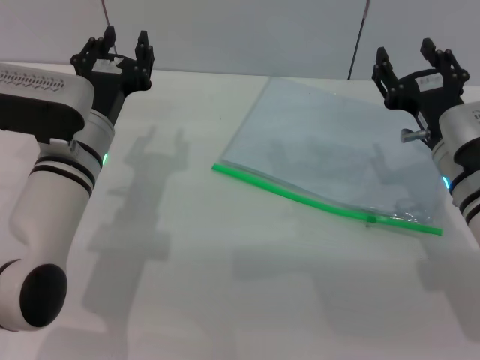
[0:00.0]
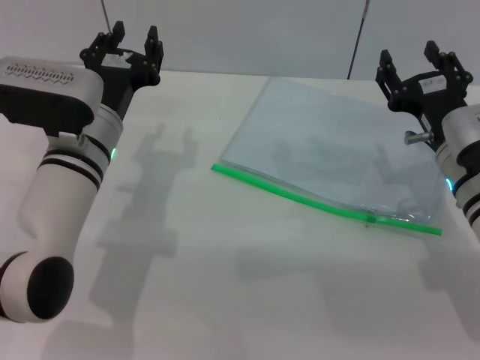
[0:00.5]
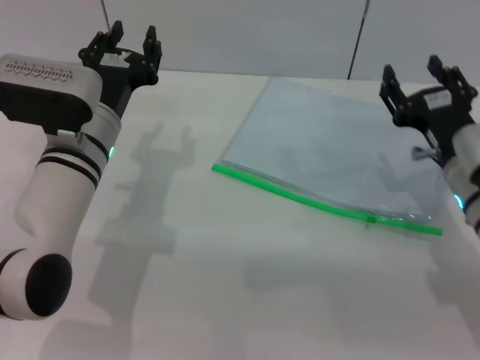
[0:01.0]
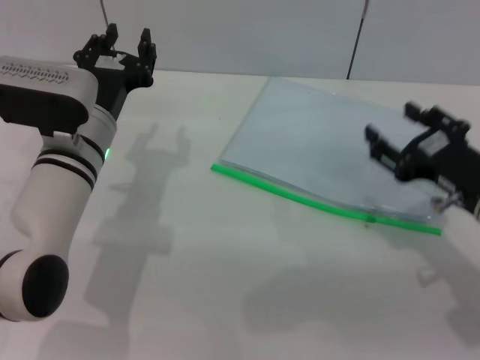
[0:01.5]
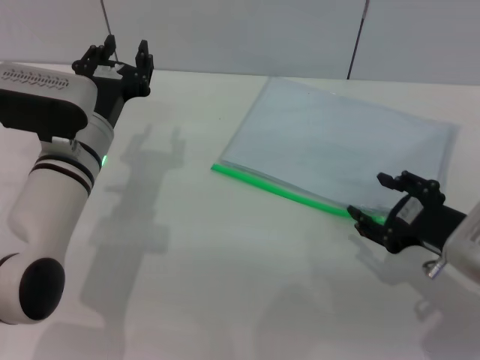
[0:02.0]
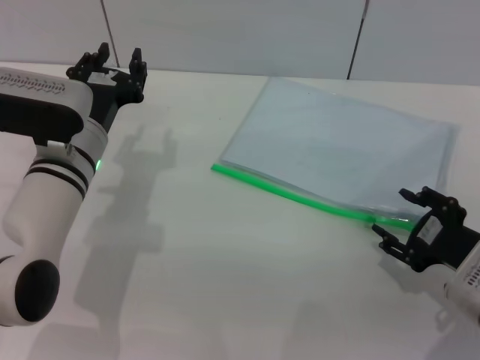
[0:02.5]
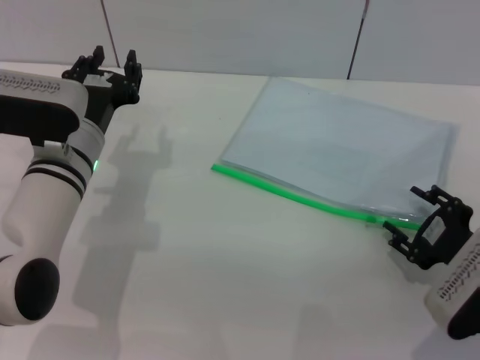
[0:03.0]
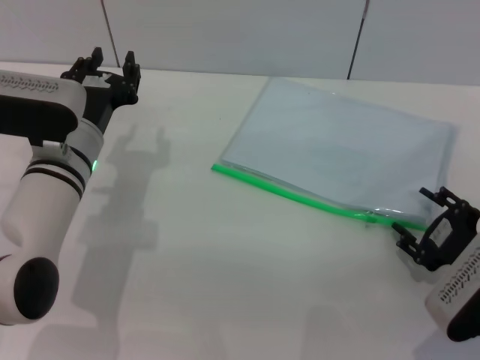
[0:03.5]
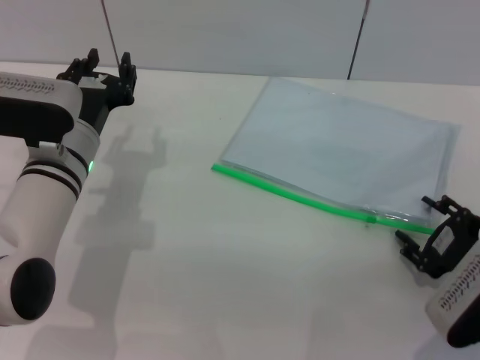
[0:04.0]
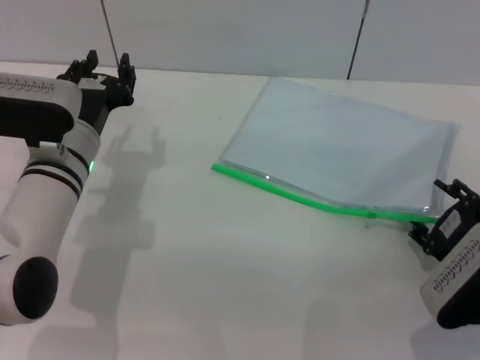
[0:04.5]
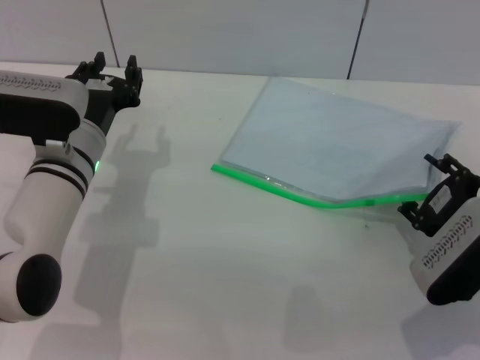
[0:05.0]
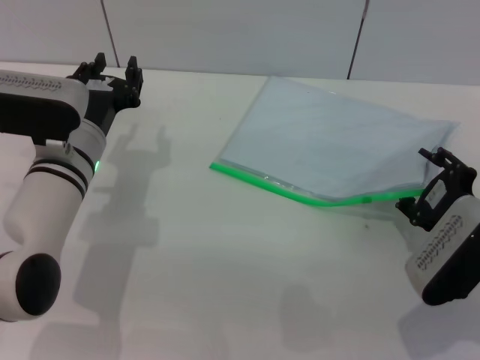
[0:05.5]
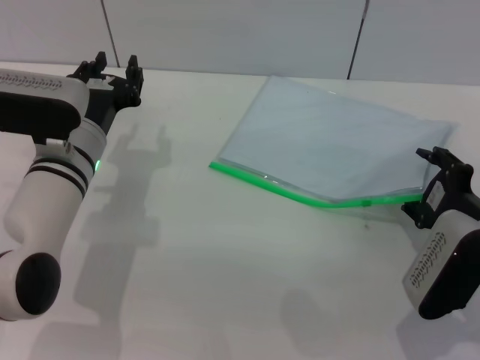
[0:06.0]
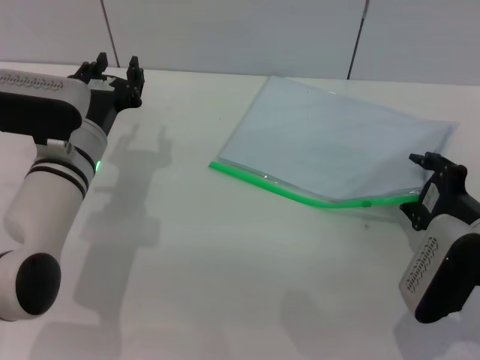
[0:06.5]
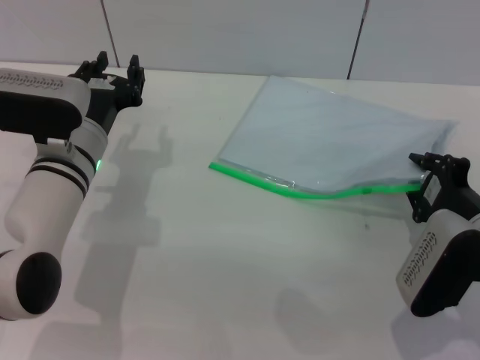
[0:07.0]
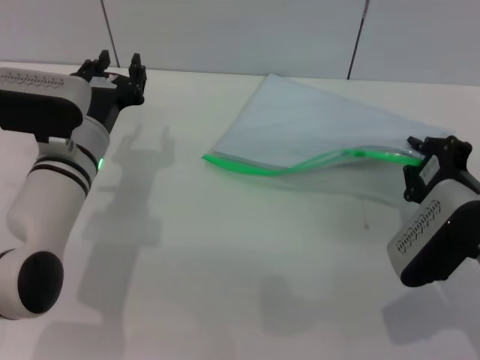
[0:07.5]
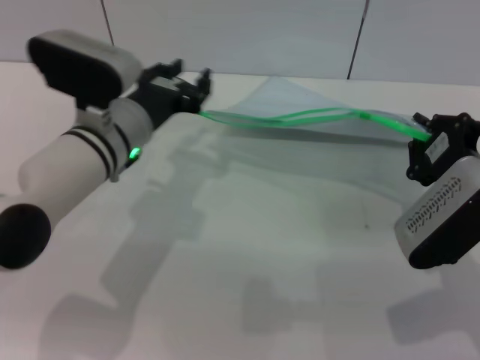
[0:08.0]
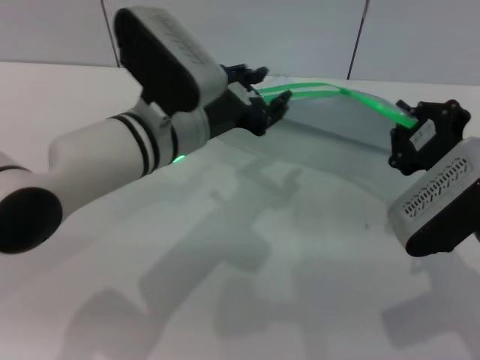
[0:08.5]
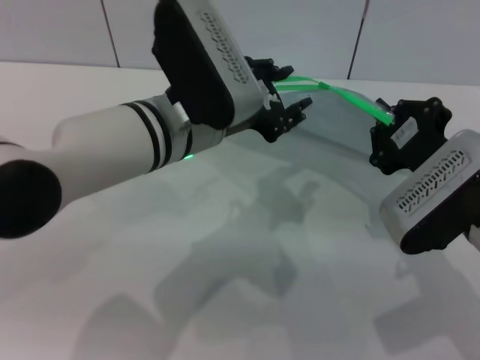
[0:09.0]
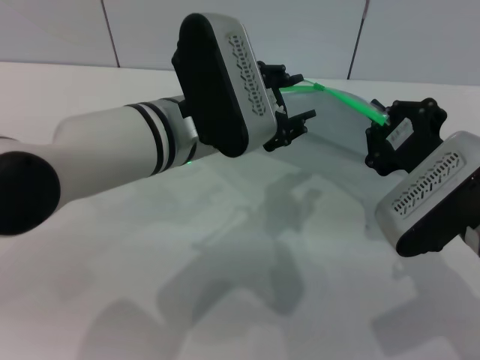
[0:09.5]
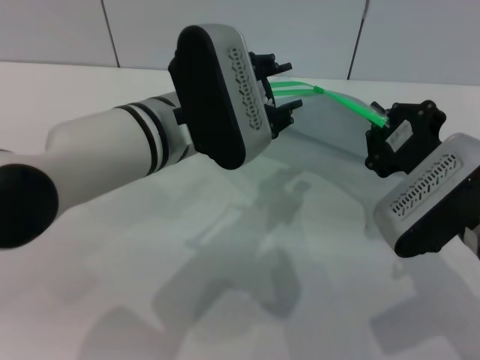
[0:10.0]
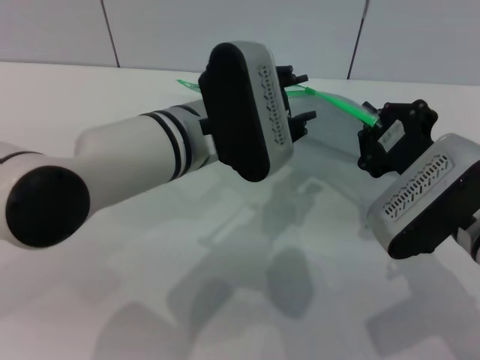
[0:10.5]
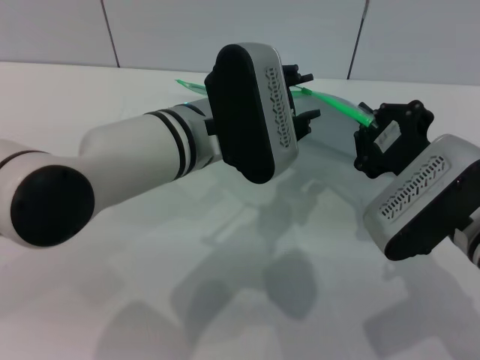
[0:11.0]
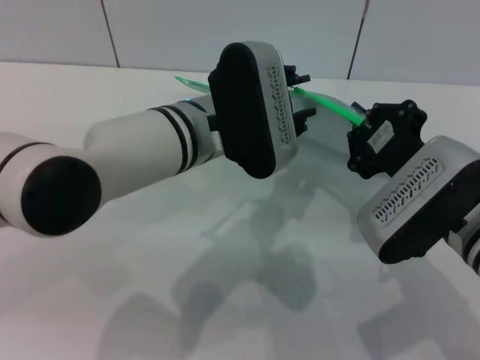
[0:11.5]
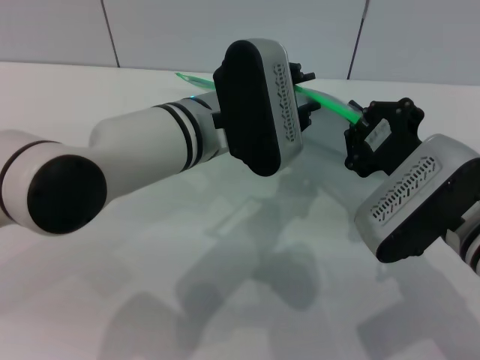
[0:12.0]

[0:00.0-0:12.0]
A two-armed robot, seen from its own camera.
Step, 0:00.0 to 0:07.5: Pick up the transparent plastic bag with the right gripper.
0:00.0 to 0:02.0: The right gripper shifts some 10 cm backward.
0:02.0 to 0:04.0: The right gripper changes place by some 5 cm.
0:04.0 to 0:06.0: The grippers move only a little.
0:06.0 to 0:08.0: The right gripper closes.
0:08.0 to 0:10.0: The left gripper is displaced to the right and upward by roughly 10 cm.

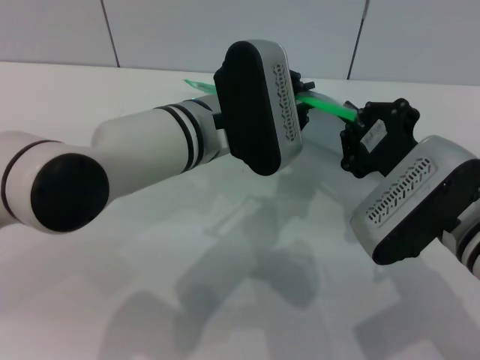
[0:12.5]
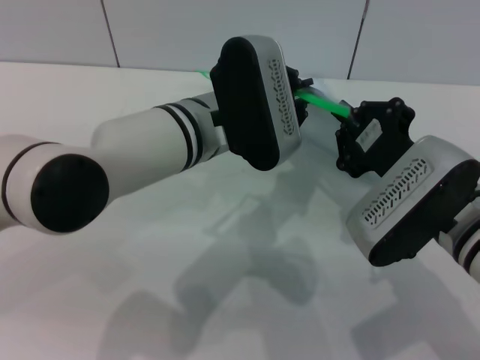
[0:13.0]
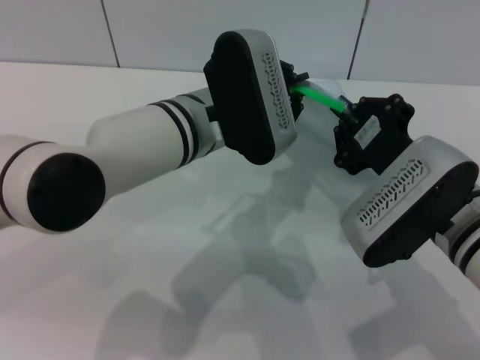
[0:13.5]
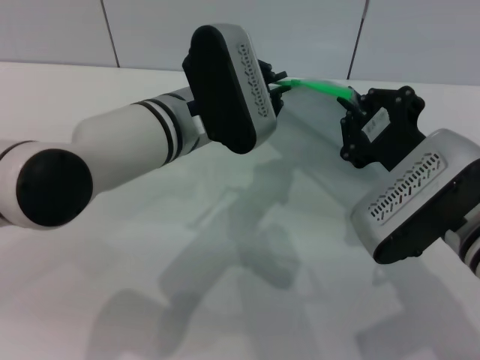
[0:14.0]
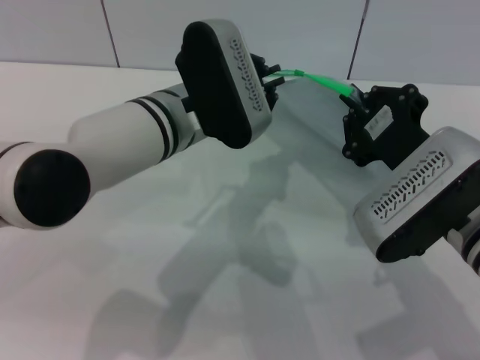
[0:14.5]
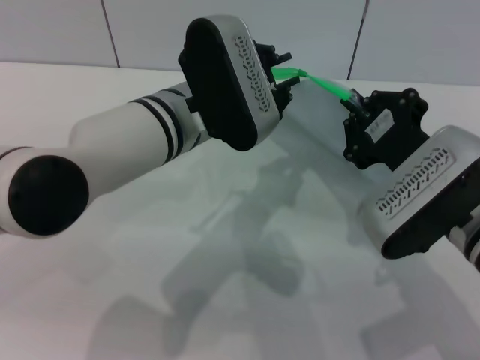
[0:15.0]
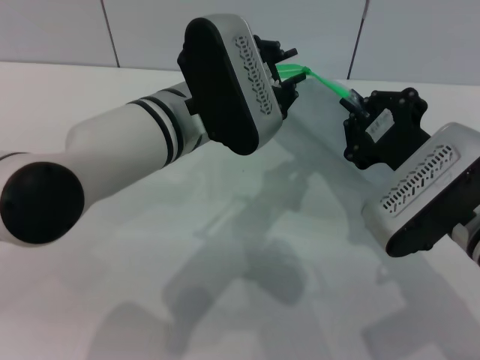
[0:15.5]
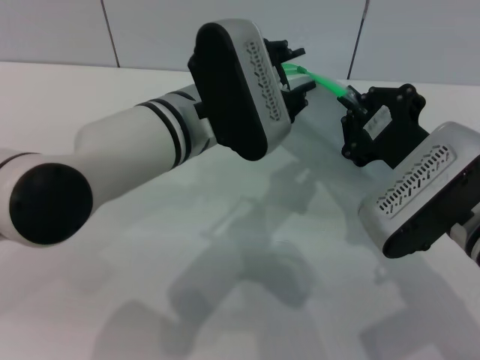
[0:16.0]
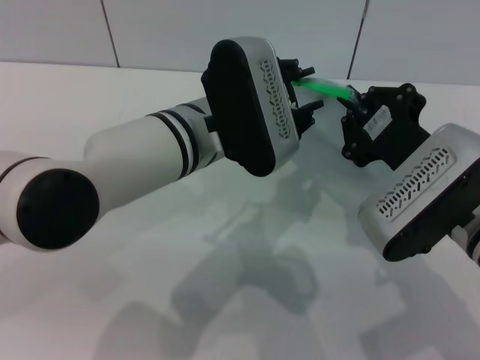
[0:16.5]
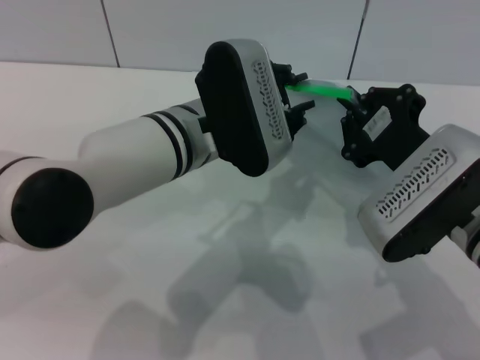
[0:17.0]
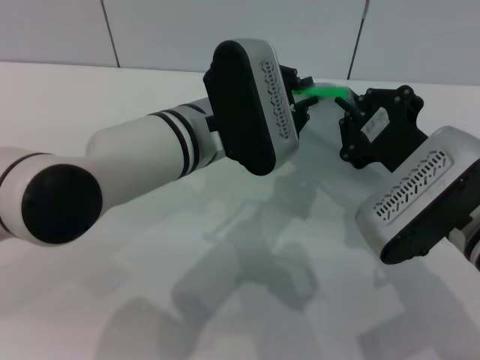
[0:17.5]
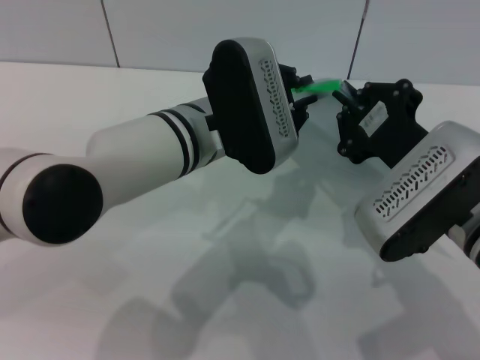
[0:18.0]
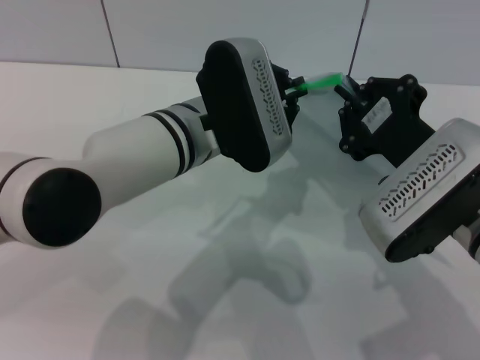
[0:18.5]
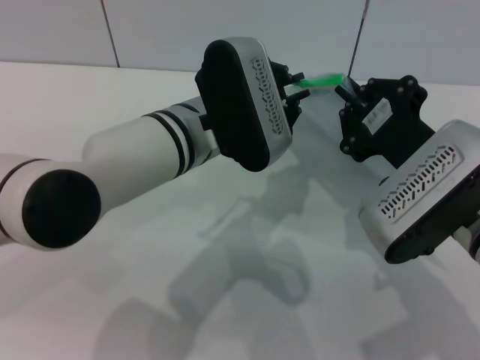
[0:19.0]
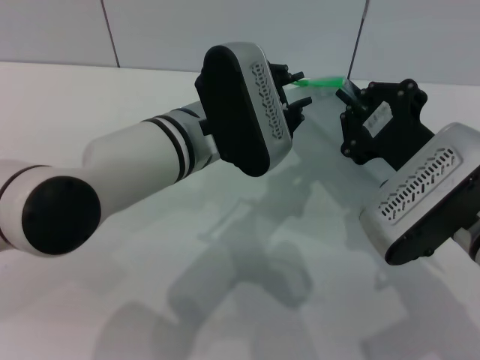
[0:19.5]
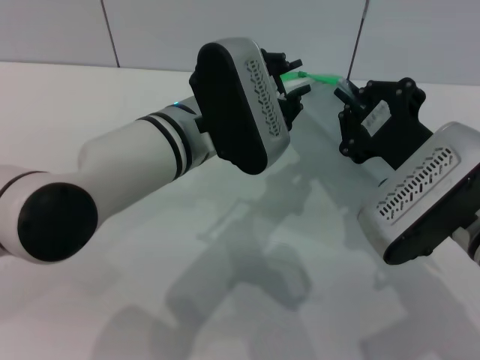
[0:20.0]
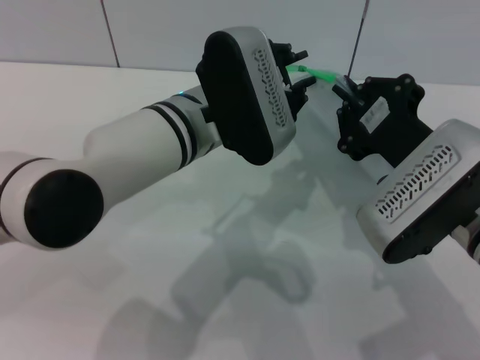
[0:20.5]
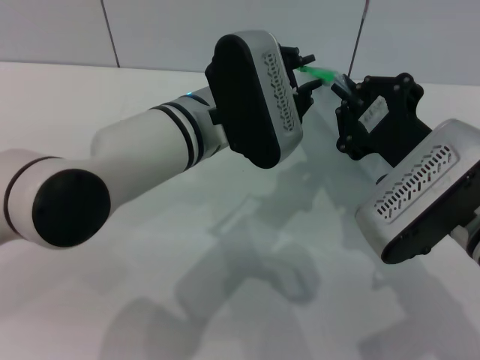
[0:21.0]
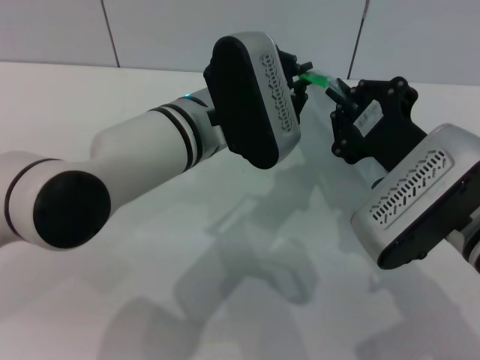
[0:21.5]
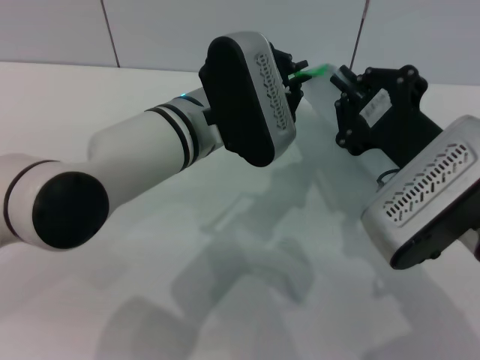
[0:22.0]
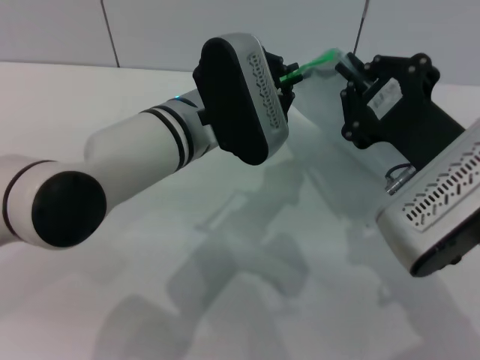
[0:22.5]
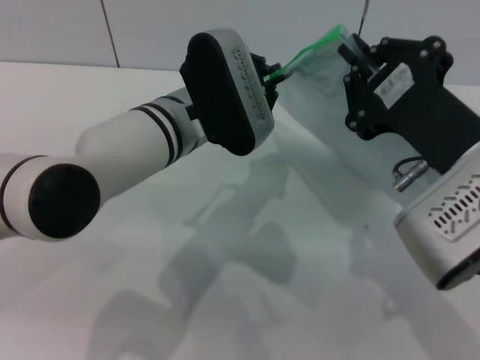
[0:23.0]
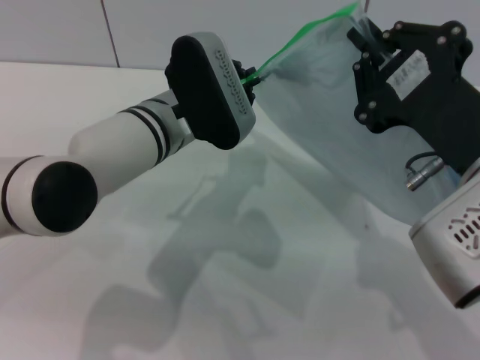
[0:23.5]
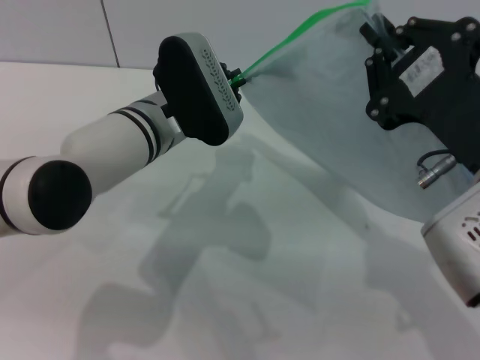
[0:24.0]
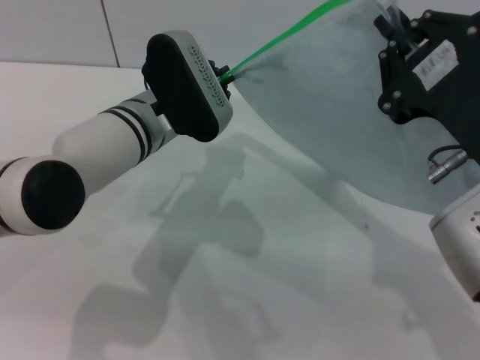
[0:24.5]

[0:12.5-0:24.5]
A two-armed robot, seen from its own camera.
0:12.5 to 0:14.5: The grippers move only a little.
0:14.5 to 0:16.5: The left gripper opens its fingers.
0:16.5 to 0:18.5: The left gripper closes.
0:18.5 to 0:20.5: The left gripper opens.
0:20.5 to 0:22.5: The left gripper closes.
0:22.5 to 0:24.5: The right gripper moves approximately 5 cm. Meanwhile the left gripper ends up some 5 cm from where it was.

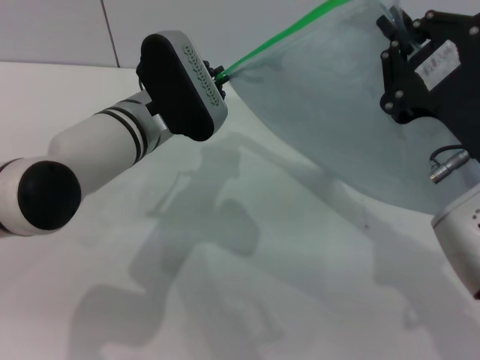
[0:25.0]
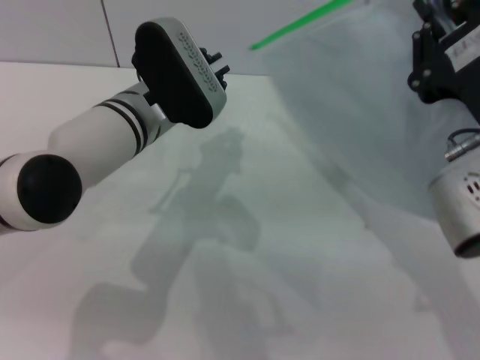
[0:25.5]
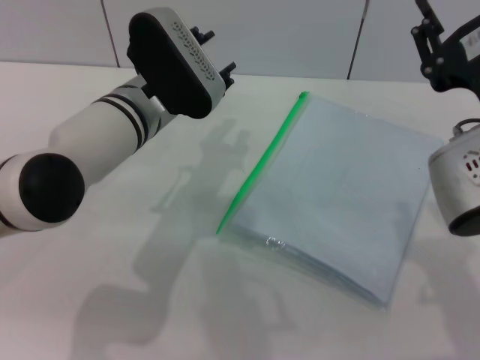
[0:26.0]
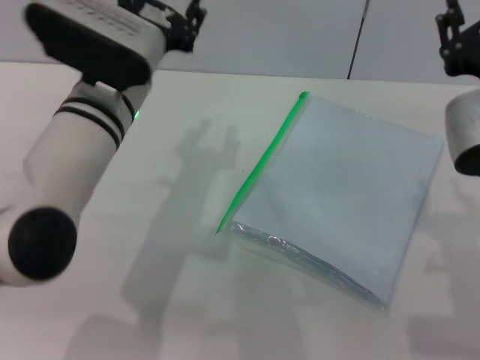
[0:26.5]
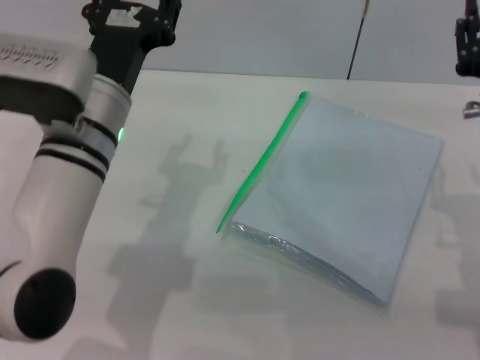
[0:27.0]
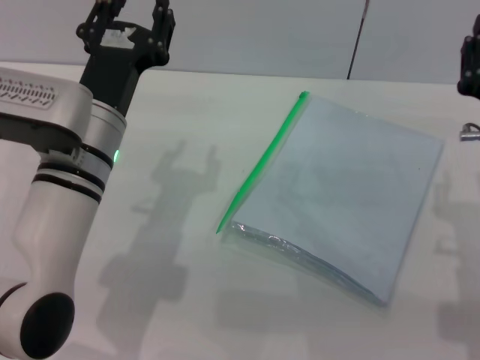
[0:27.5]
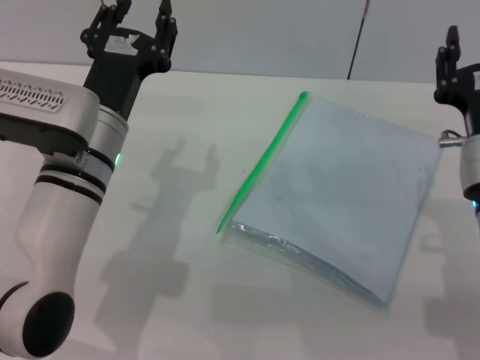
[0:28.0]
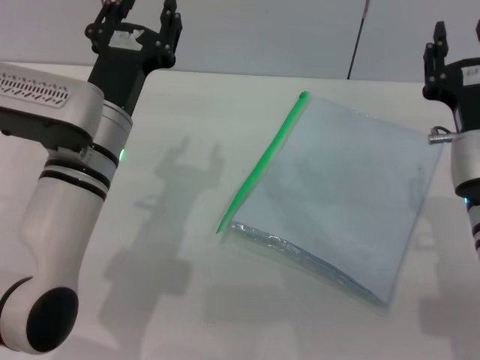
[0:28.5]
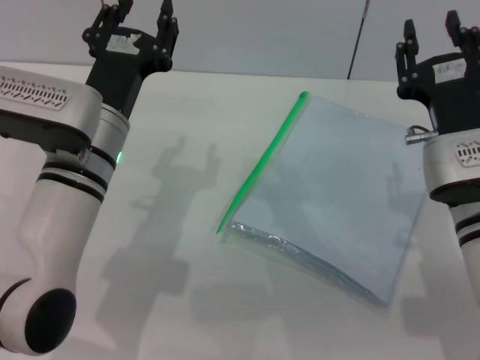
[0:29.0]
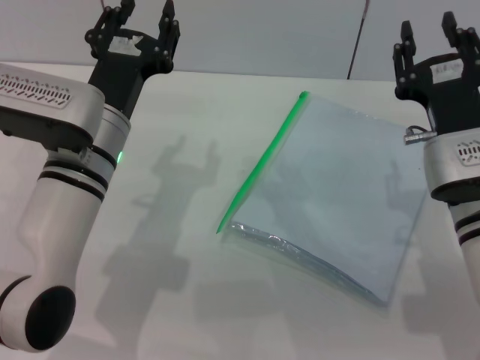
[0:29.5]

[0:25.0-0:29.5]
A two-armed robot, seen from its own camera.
Step, 0:26.0 to 0:27.0: Place the transparent plastic bag.
0:25.0 to 0:27.0: The right gripper heads forward and downward, covering some 10 cm, and opens its fingers. The left gripper goes approximately 5 cm backward, and opens.
0:27.0 to 0:29.5: The right gripper ends up roughly 5 cm from where it was.
